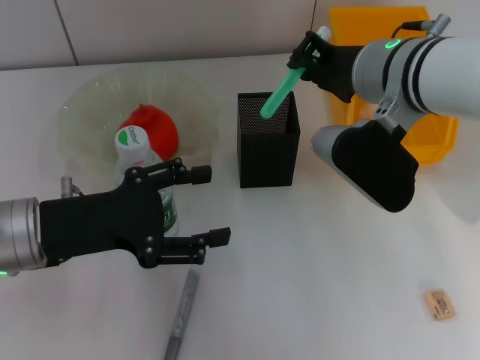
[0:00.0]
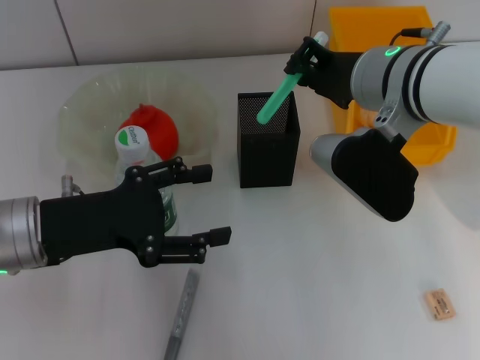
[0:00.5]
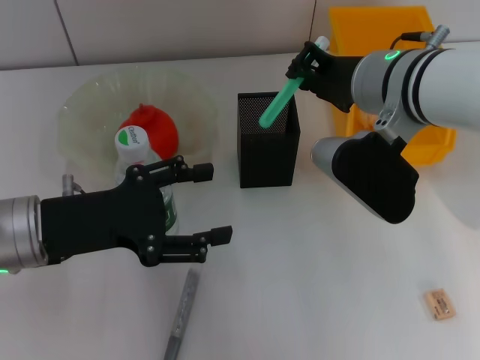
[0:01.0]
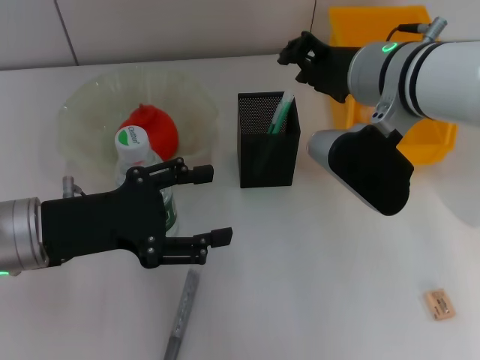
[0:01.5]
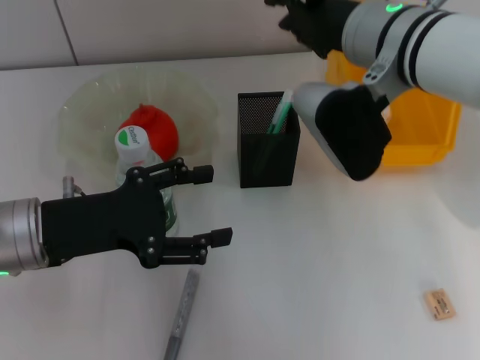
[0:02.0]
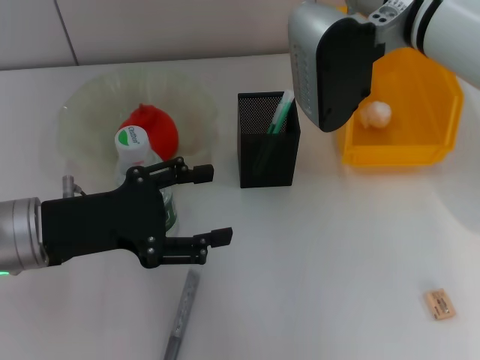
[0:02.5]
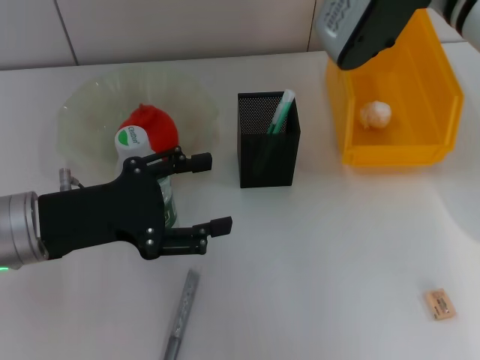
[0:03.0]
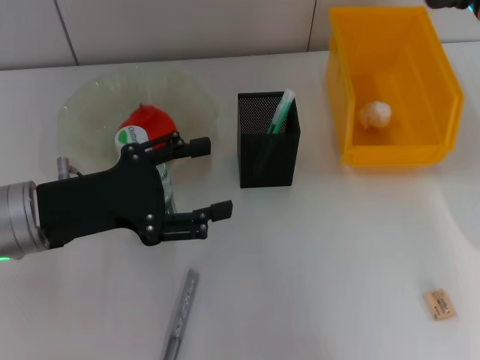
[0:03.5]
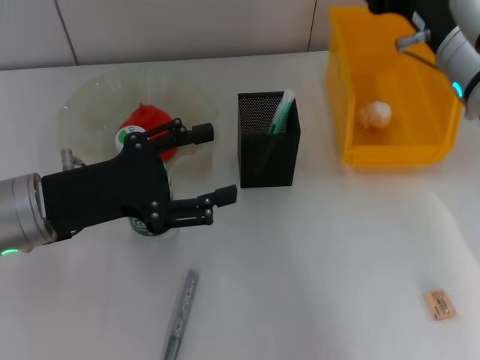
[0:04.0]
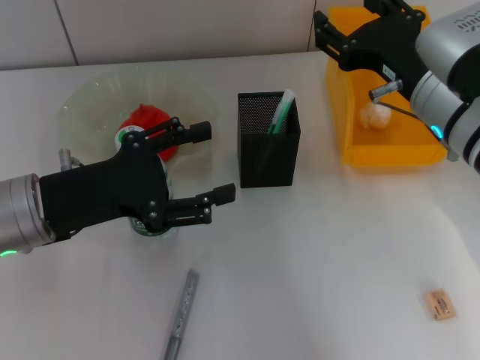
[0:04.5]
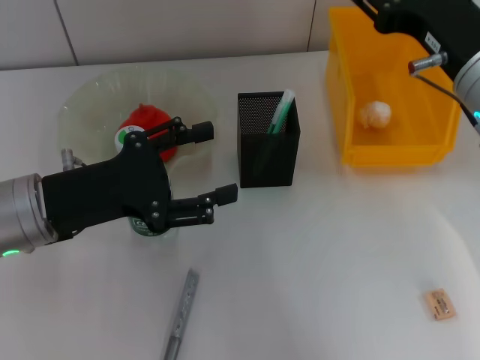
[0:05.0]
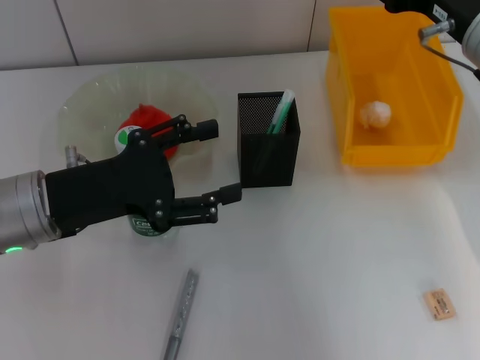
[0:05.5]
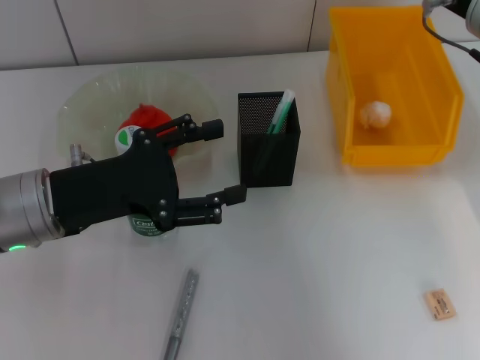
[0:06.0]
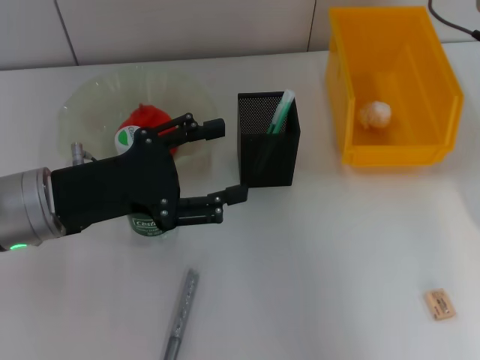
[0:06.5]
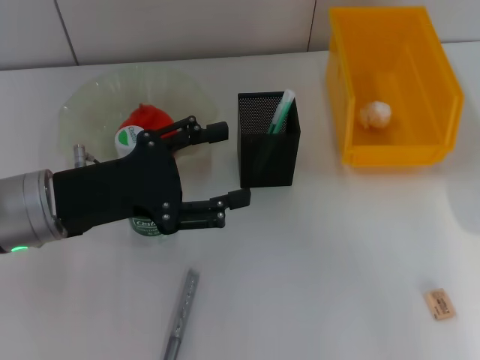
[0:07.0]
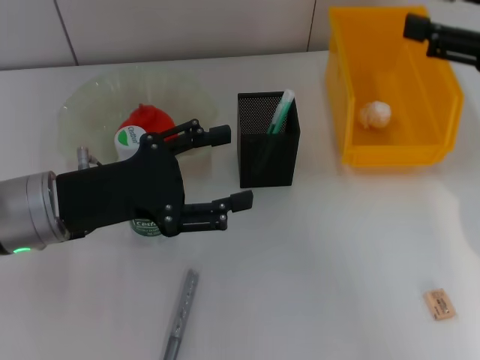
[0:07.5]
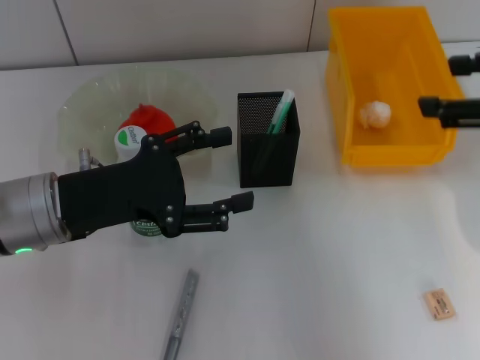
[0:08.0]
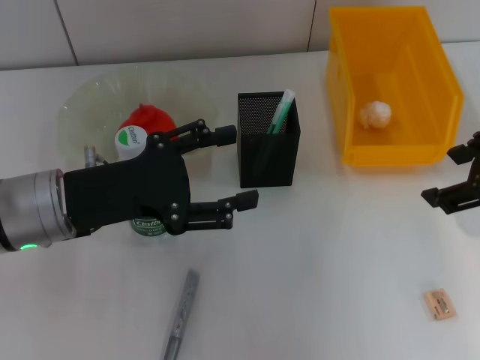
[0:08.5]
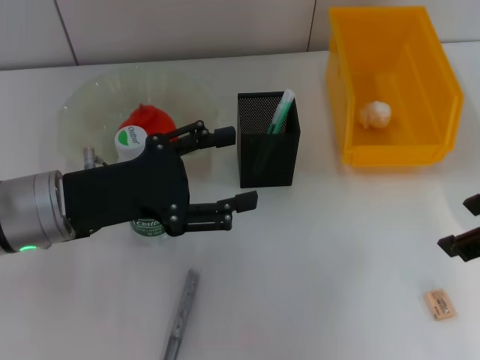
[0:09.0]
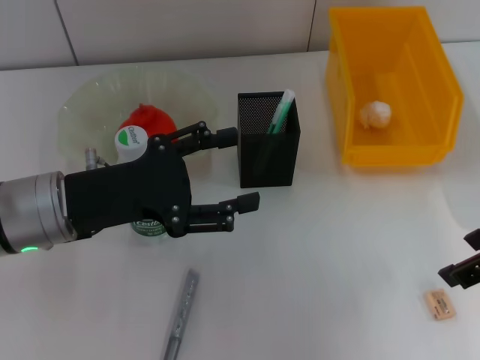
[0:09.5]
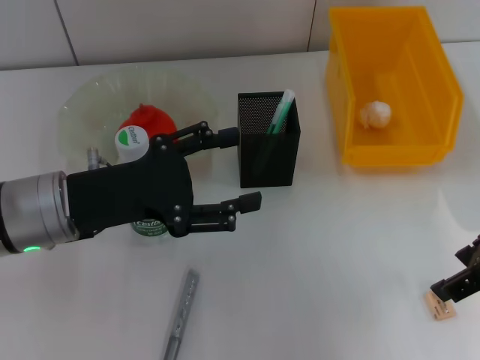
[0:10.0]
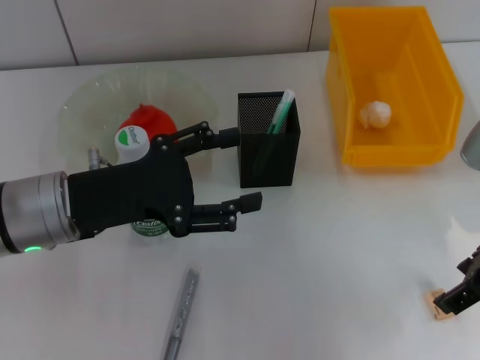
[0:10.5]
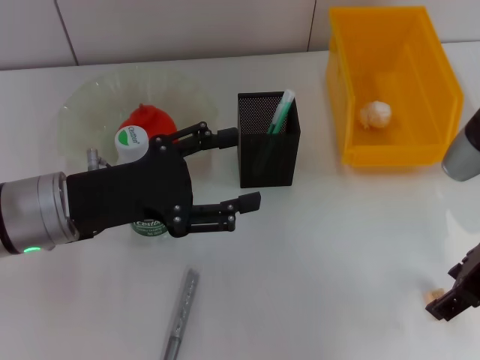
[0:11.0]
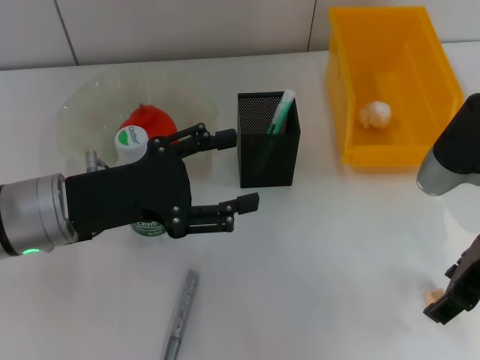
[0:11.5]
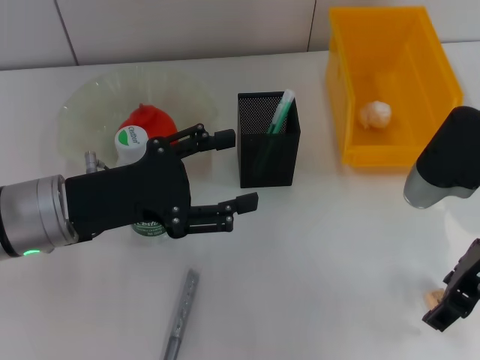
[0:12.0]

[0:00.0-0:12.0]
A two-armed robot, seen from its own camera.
0:00.0 to 0:02.0: The grippers move only a little.
0:02.0 to 0:04.0: The right gripper goes approximately 5 cm to the right, and opens its fingers.
0:04.0 to 0:06.0: The right gripper moves some 5 cm.
0:06.0 to 0:08.0: The right gripper travels backward and to the right by approximately 10 cm.
0:08.0 to 0:10.0: The right gripper is displaced downward by approximately 5 cm.
0:10.0 to 0:12.0: The right gripper moves approximately 5 cm.

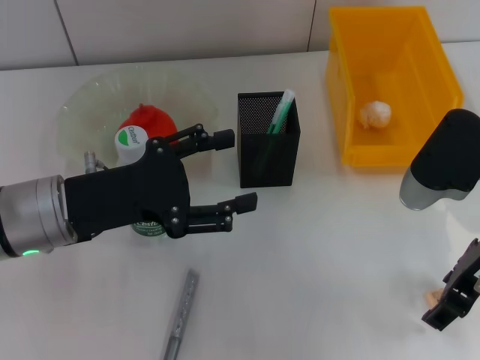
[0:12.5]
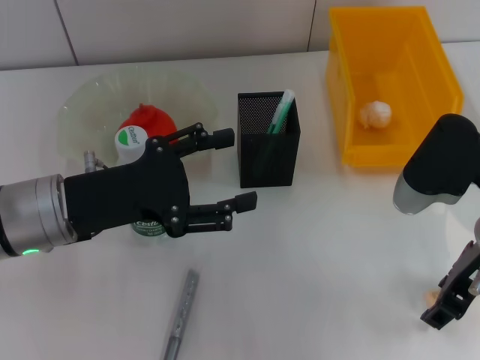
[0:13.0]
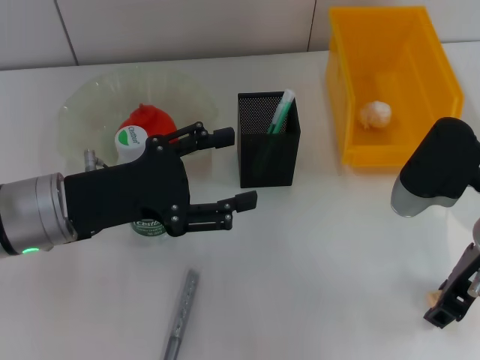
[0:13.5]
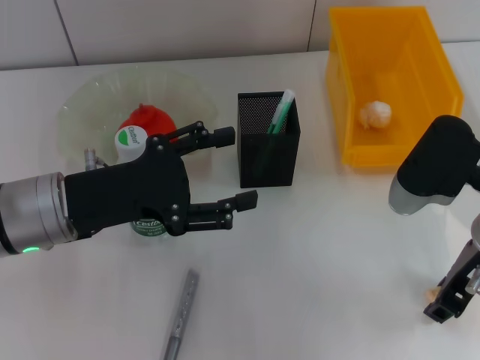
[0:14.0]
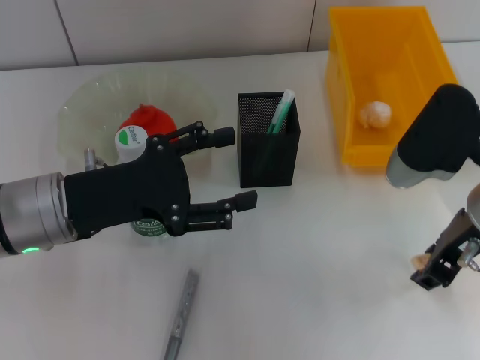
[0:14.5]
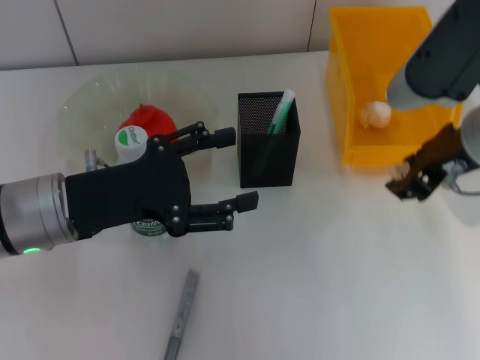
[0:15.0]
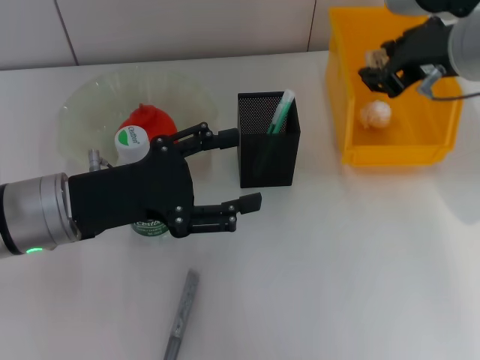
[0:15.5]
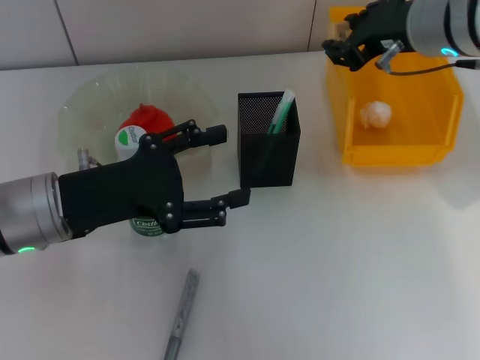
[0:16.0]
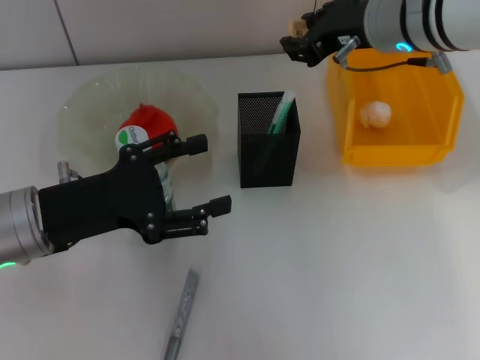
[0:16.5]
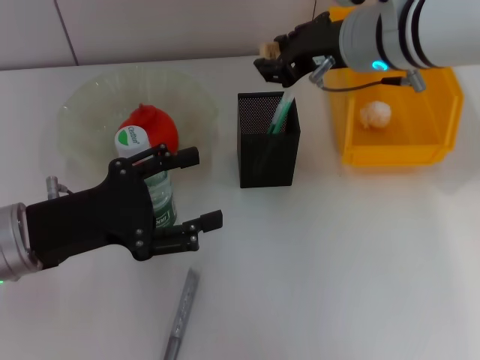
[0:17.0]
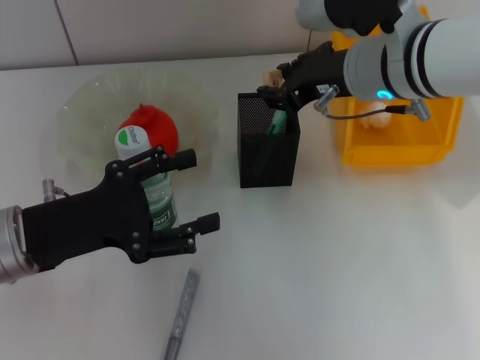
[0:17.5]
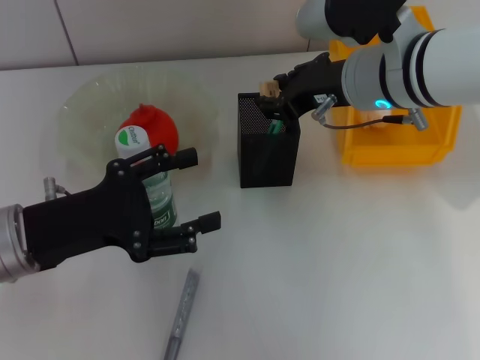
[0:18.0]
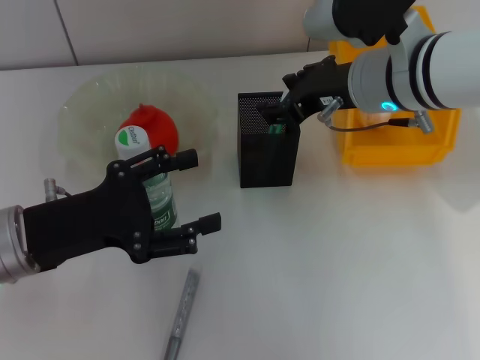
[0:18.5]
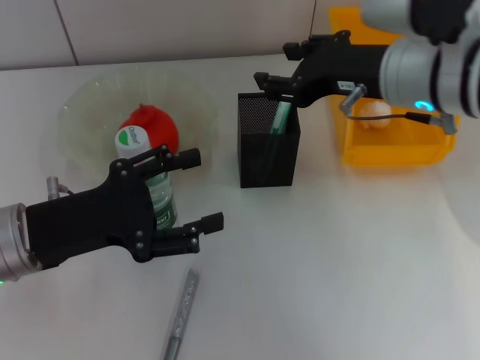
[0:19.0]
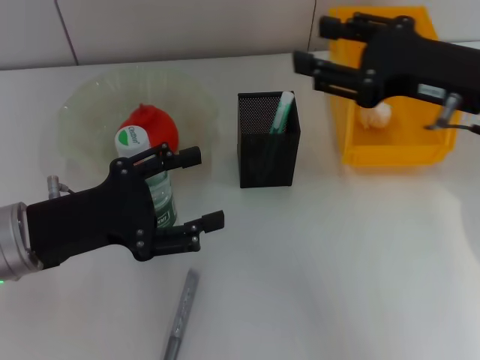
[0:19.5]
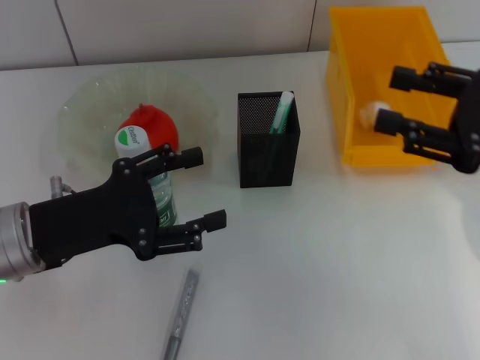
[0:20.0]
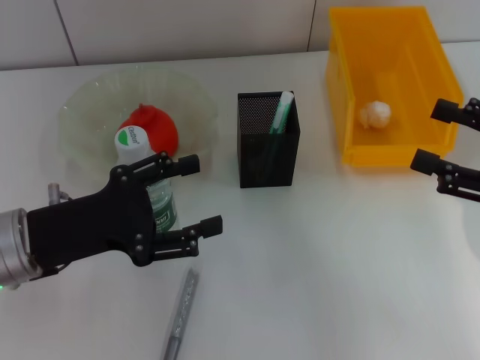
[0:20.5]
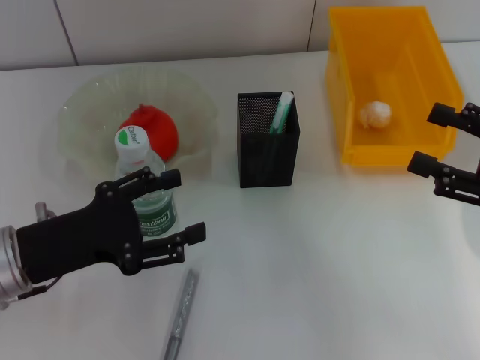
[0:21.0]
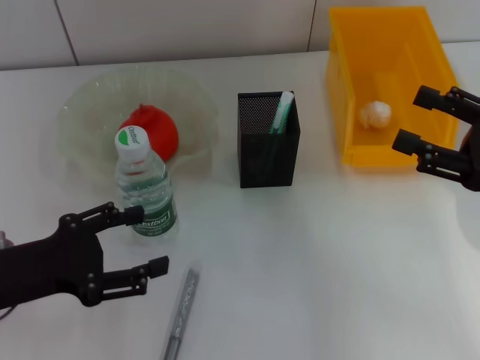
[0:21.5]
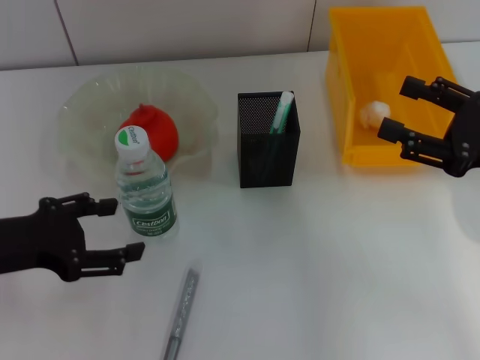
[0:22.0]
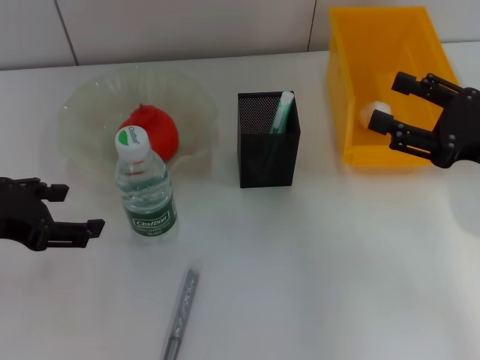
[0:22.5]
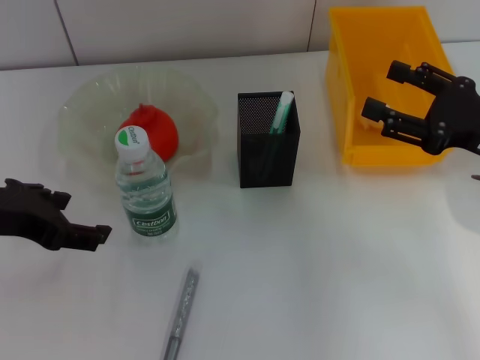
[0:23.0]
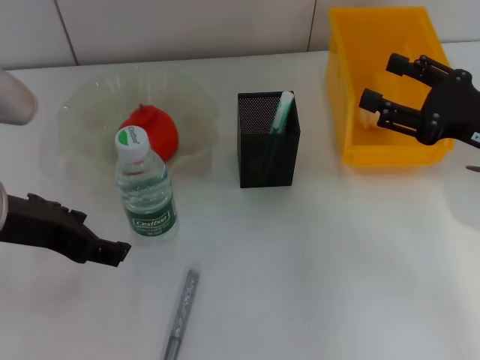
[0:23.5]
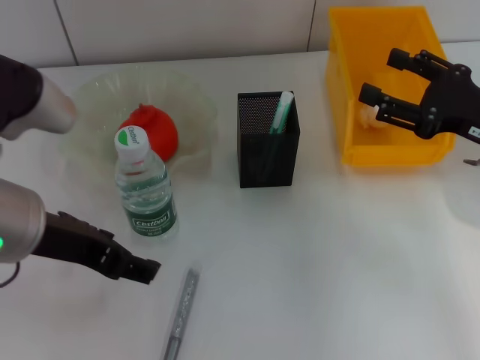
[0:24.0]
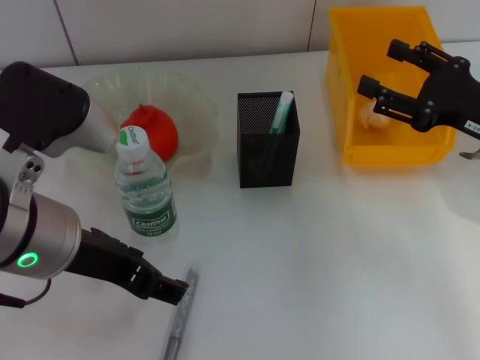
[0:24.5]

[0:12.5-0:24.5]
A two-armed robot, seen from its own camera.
Step, 0:14.0 to 0:18.0: Put the eraser into the pen holder with the right hand.
0:12.5 to 0:14.5: The right gripper closes up.
0:14.5 to 0:16.5: The right gripper is displaced forward, upward and to the left by about 15 cm.
0:16.5 to 0:18.5: There are only small adjustments of the grippers.
0:18.5 to 0:20.5: The right gripper travels to the right and backward by approximately 25 cm, and opens its fingers.
0:20.5 to 0:22.5: The right gripper shifts approximately 5 cm forward; the left gripper moves upward, about 5 cm.
0:22.5 to 0:24.5: The left gripper shifts approximately 10 cm to the right.

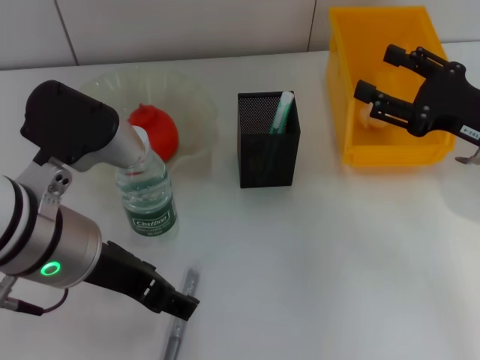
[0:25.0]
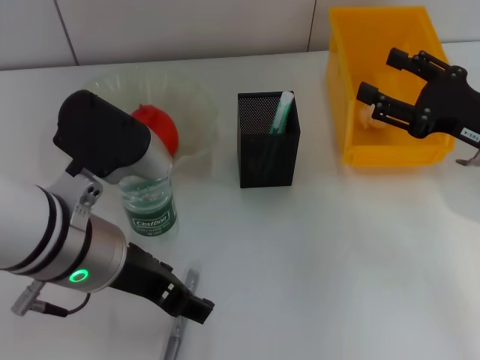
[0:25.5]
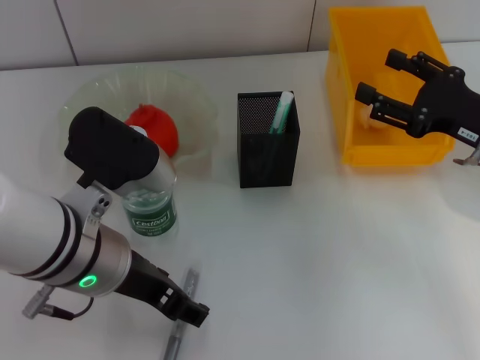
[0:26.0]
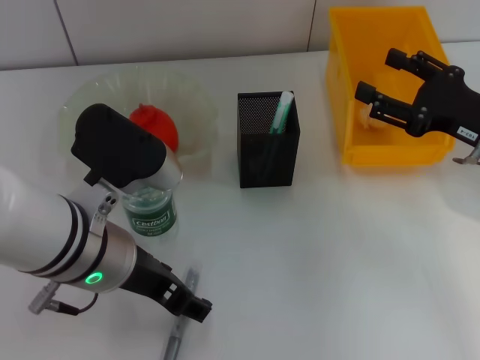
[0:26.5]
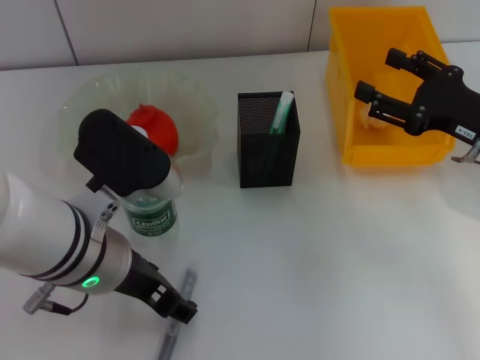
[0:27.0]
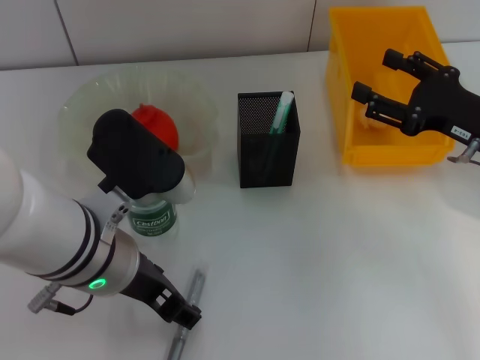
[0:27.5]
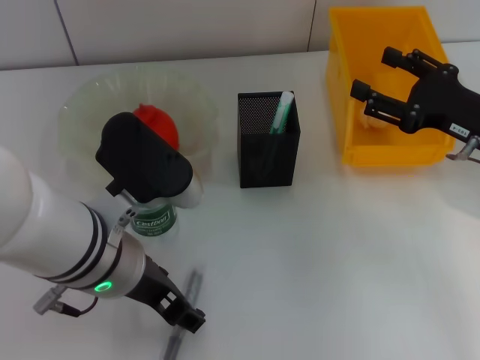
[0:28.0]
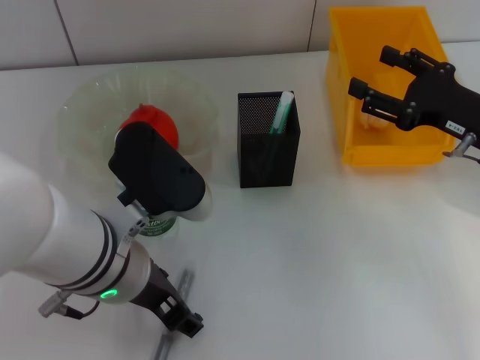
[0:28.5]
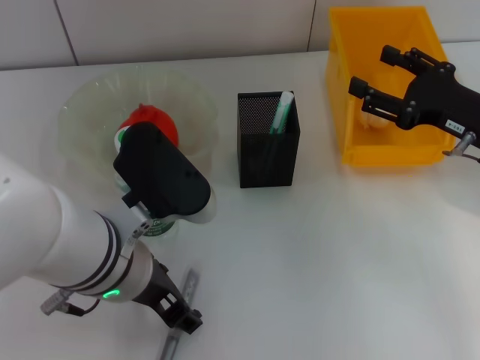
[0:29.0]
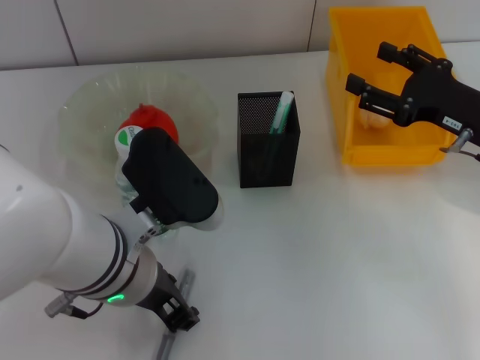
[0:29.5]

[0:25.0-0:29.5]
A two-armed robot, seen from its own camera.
0:25.0 to 0:27.0: The grippers stay close to where they were, moving slightly.
0:27.0 to 0:29.5: There are only small adjustments of the grippers.
